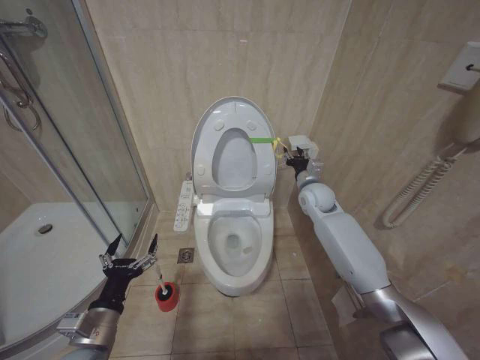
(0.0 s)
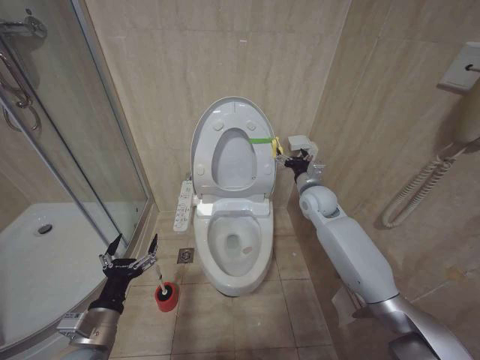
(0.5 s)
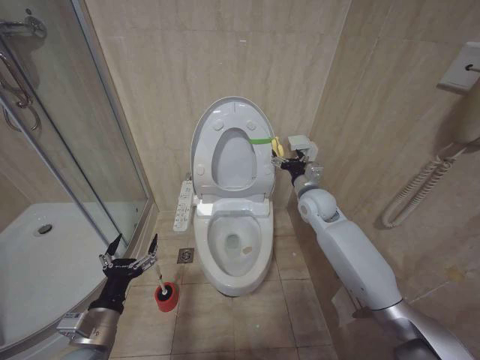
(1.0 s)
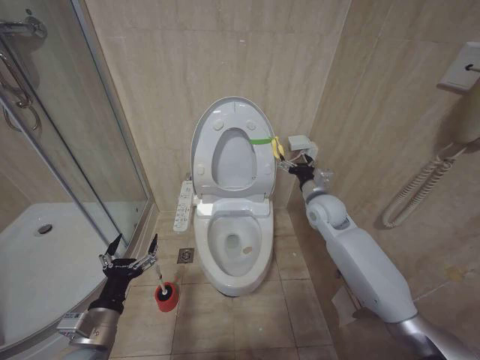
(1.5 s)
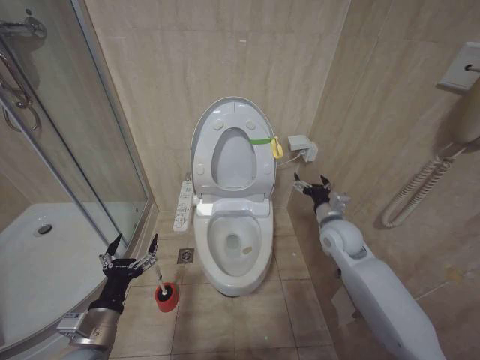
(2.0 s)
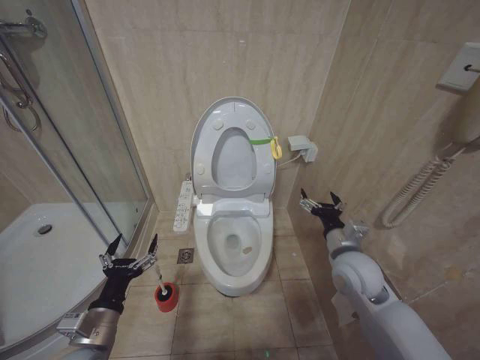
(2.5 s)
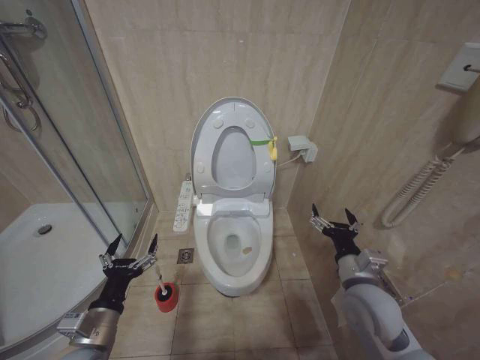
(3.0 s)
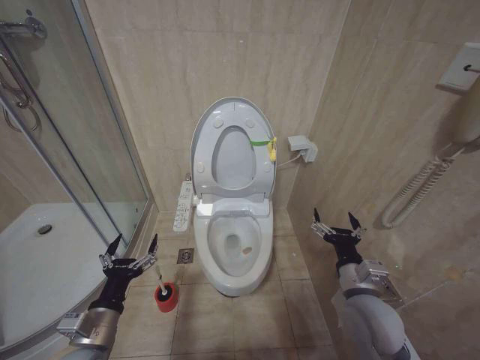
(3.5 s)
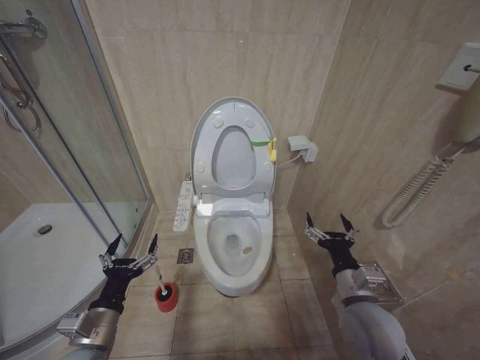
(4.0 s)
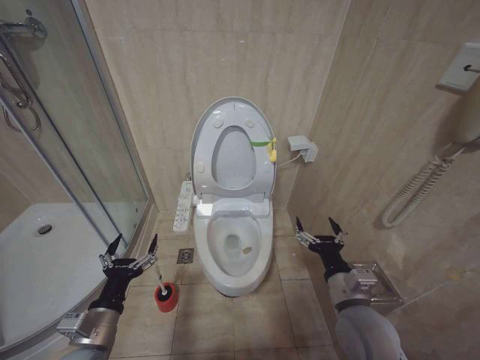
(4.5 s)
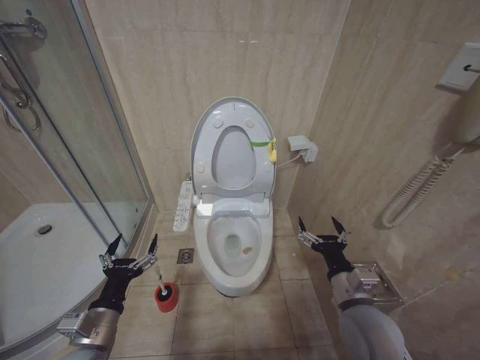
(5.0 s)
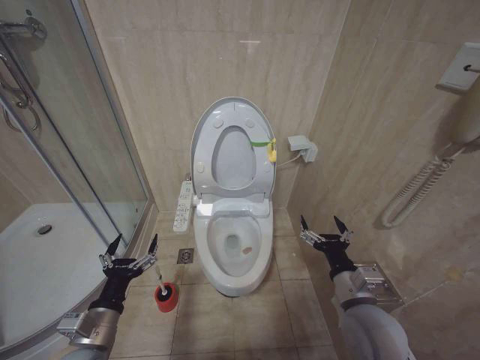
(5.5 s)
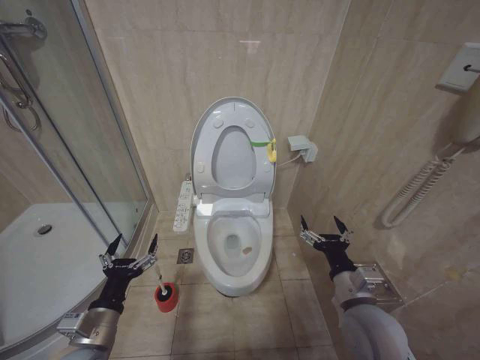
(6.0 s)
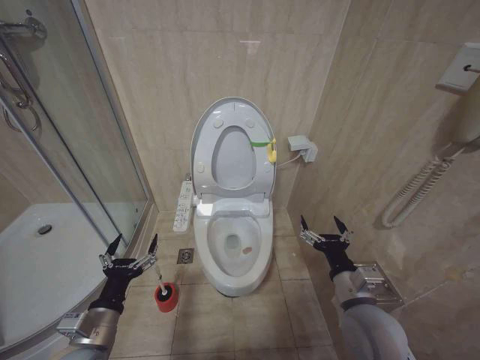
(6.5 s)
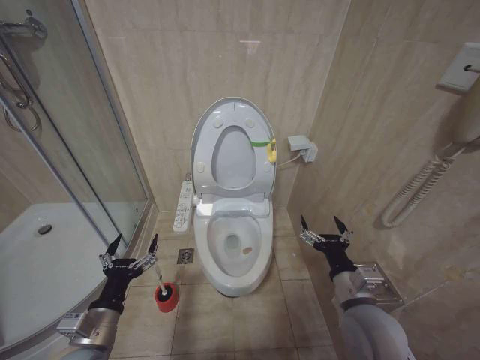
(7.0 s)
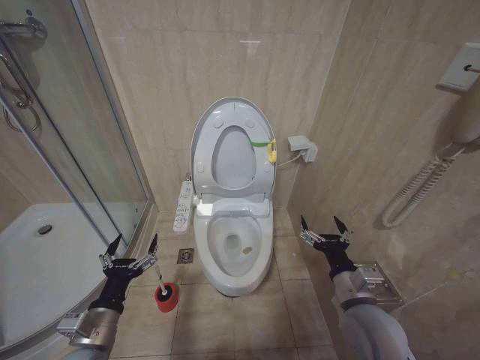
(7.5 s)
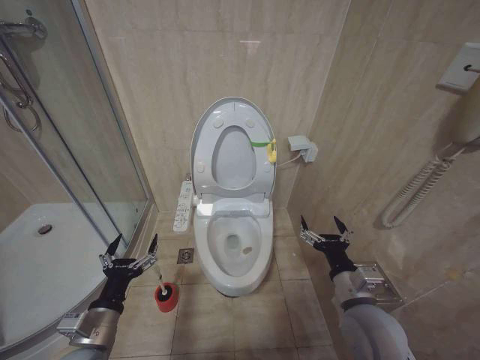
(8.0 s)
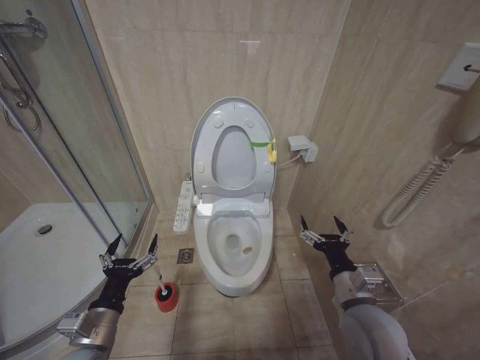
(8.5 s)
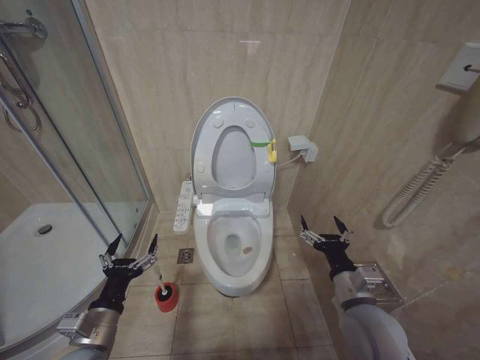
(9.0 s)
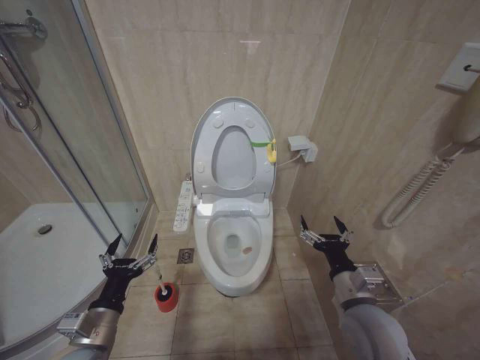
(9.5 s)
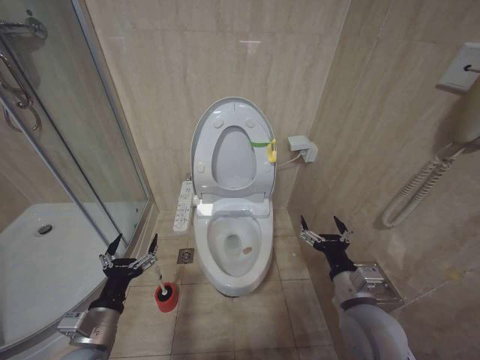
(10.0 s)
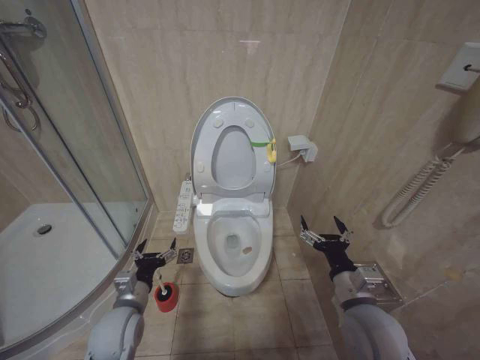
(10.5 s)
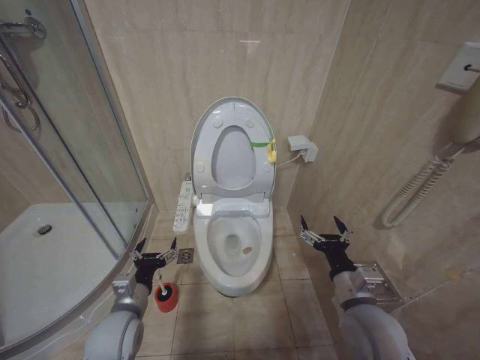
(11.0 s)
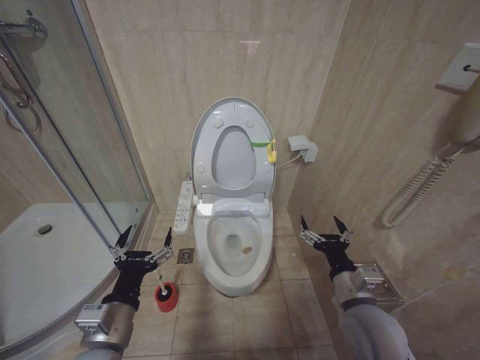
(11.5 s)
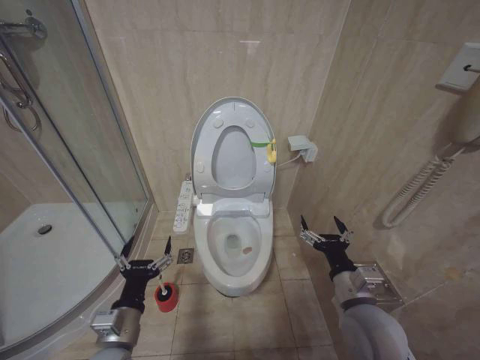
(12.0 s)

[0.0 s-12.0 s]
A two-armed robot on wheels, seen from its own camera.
Task of the whole recording: Open the toilet lid, clean the toilet bowl with a toilet brush, close the toilet lid, and flush.
0.0 to 2.0 s: The right gripper shifts approximately 10 cm backward, and opens.
2.0 to 4.0 s: The right gripper is displaced backward by about 20 cm.
6.0 to 10.0 s: Neither gripper changes place.
10.0 to 12.0 s: The left gripper heads to the right, covering approximately 5 cm, and travels forward and back again, roughly 5 cm each way.

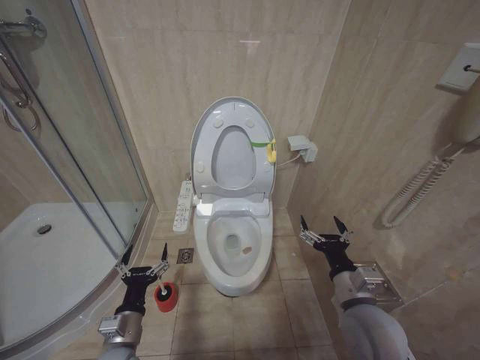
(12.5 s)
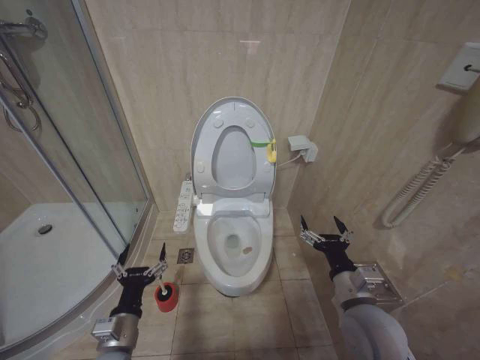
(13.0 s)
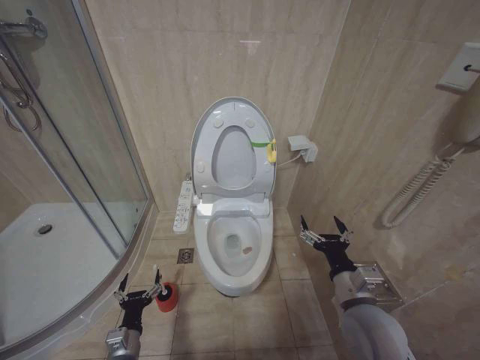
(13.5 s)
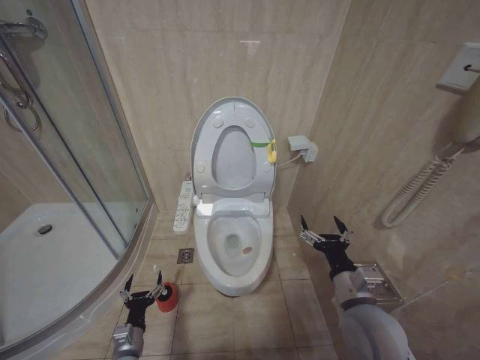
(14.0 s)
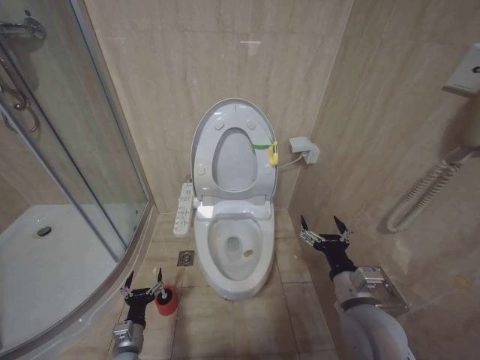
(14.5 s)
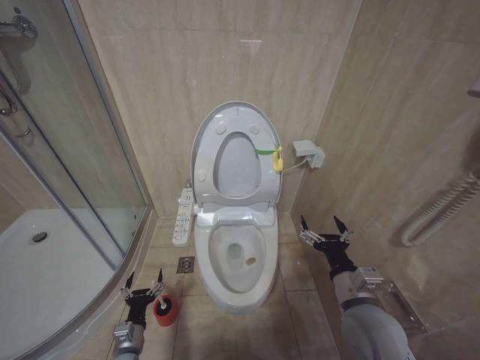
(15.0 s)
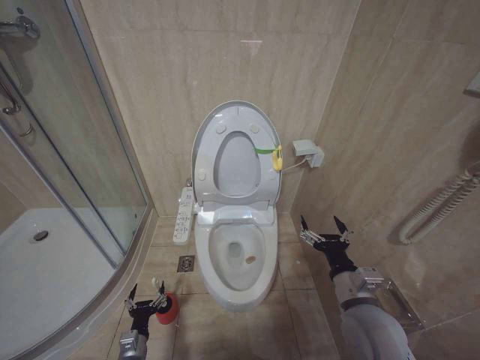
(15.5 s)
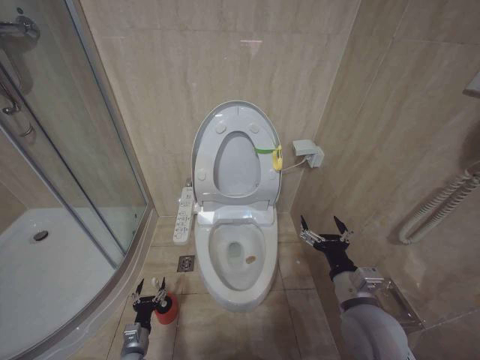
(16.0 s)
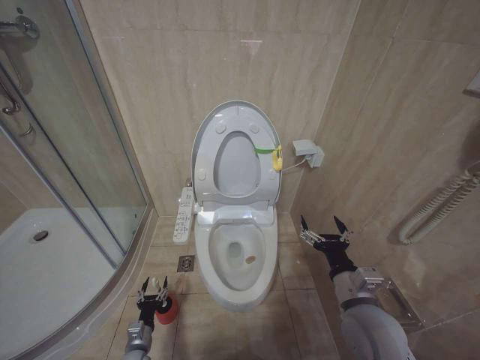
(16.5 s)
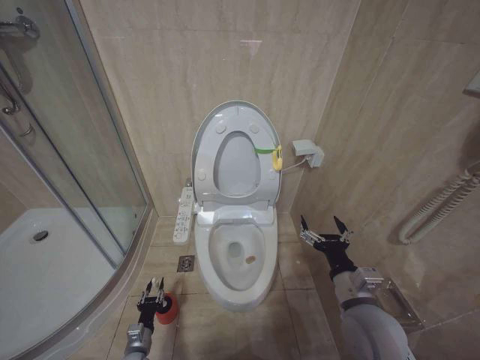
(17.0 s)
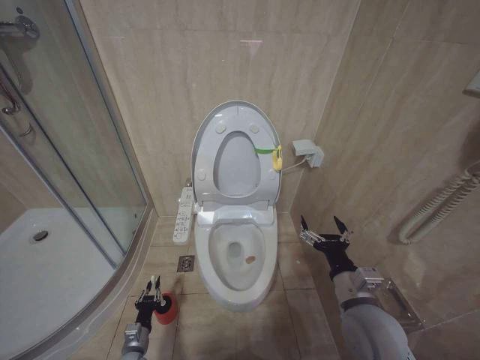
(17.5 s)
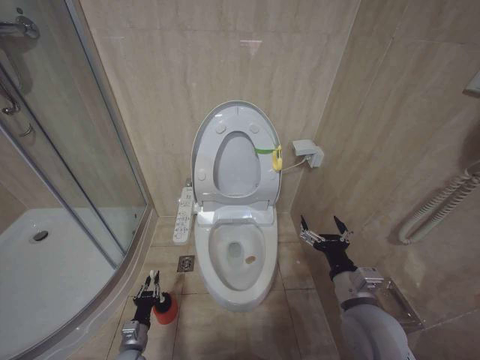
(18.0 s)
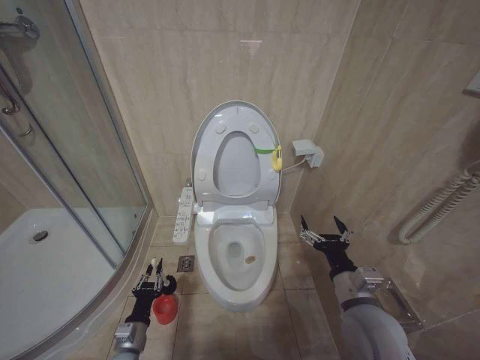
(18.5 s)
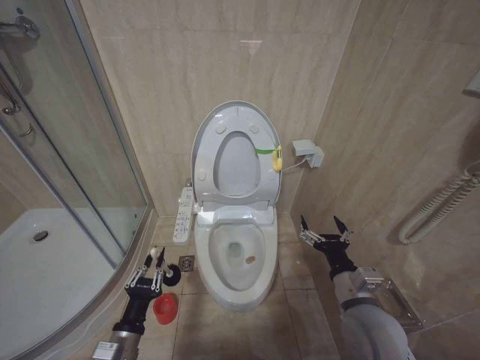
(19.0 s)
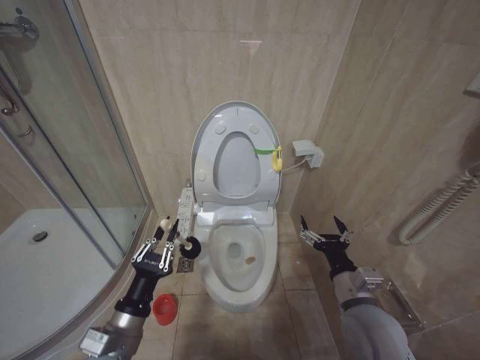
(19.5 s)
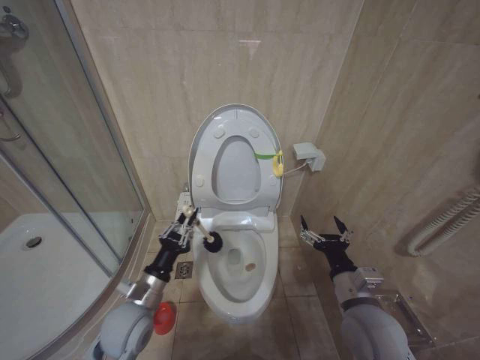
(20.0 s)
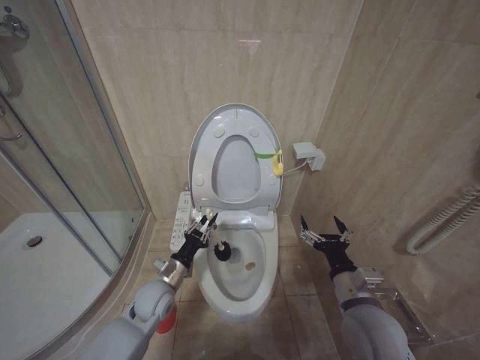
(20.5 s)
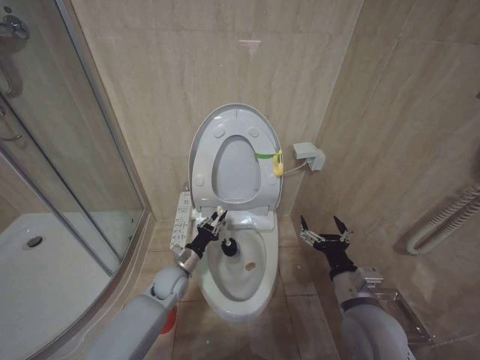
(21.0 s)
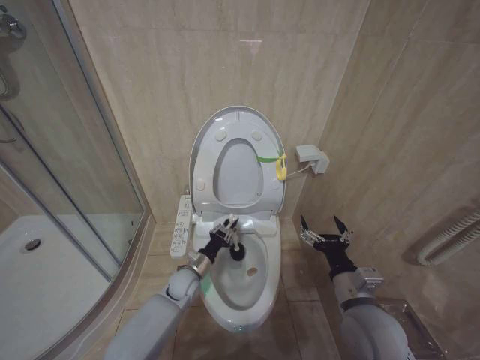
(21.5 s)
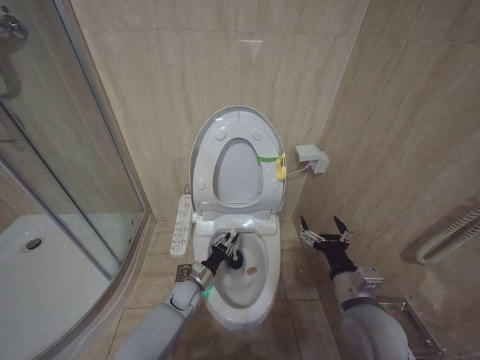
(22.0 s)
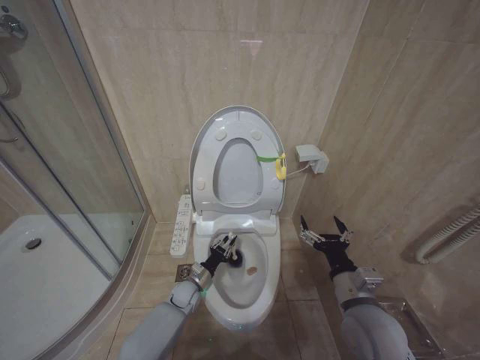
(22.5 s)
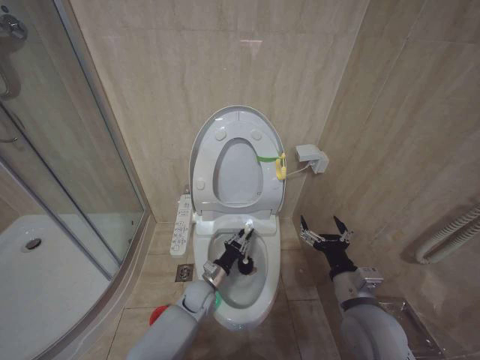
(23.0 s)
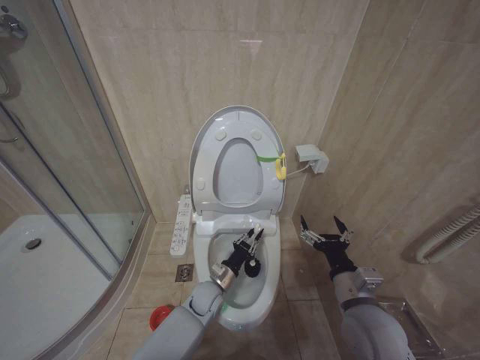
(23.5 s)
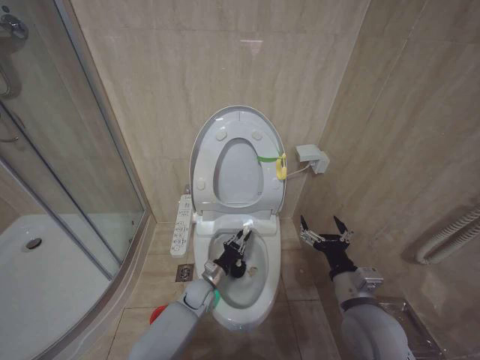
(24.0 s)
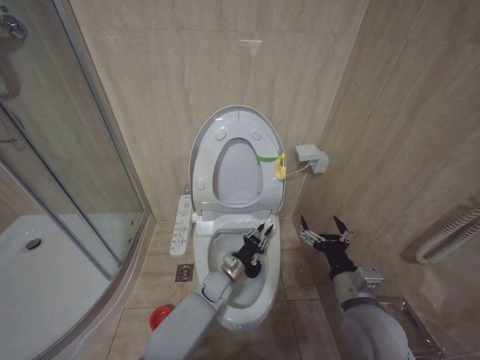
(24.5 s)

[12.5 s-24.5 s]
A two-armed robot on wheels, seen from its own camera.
Task of the whole recording: Open the toilet lid, clean the toilet bowl with a toilet brush, close the toilet lid, and flush.
12.5 to 14.5 s: The left gripper shifts roughly 15 cm downward.
14.5 to 16.5 s: The left gripper is displaced downward by approximately 10 cm.
16.5 to 18.5 s: The left gripper heads upward, covering approximately 10 cm, and closes.
18.5 to 20.5 s: The left gripper moves upward, forward and to the right, some 15 cm.
20.5 to 22.5 s: The left gripper is displaced downward and forward by roughly 15 cm.
22.5 to 24.5 s: The left gripper moves to the right and upward, approximately 15 cm.

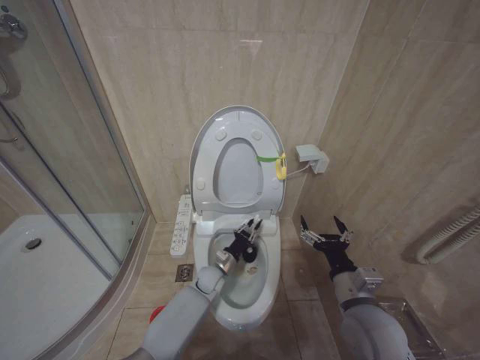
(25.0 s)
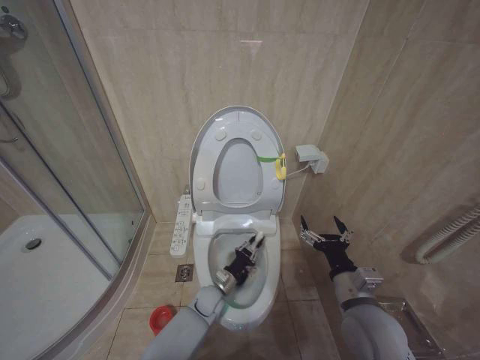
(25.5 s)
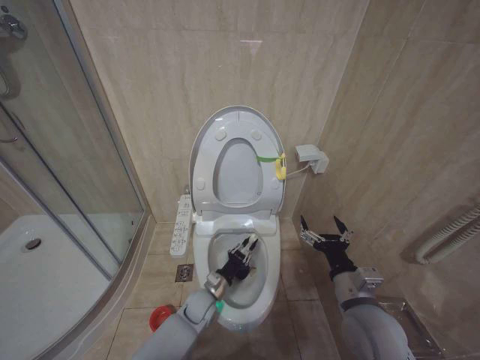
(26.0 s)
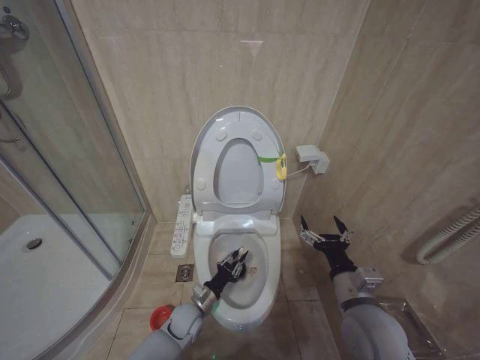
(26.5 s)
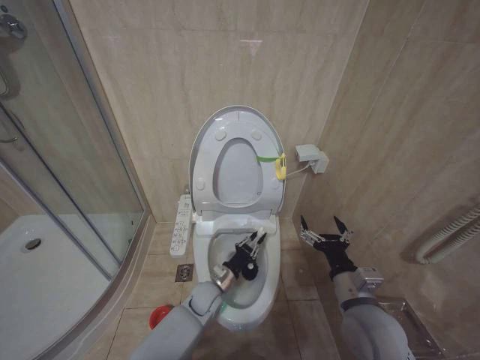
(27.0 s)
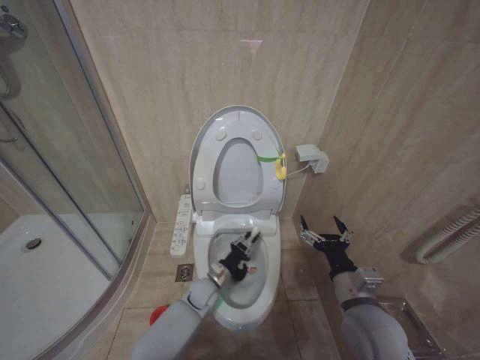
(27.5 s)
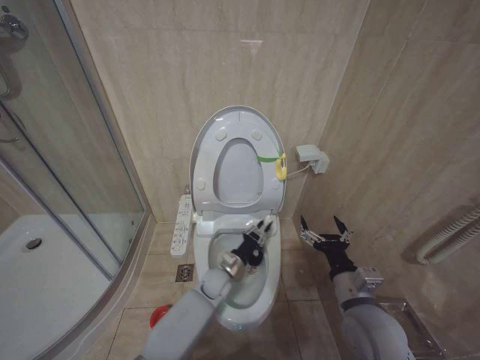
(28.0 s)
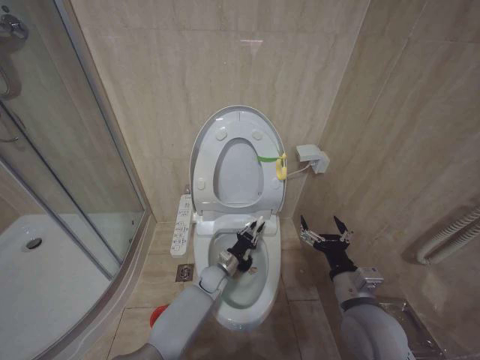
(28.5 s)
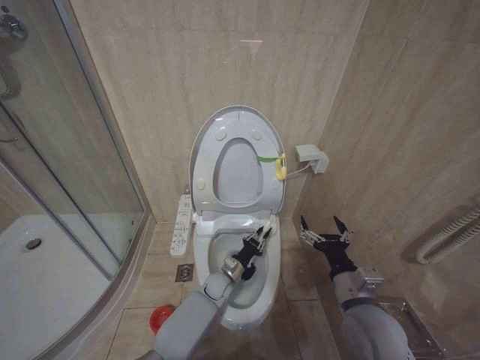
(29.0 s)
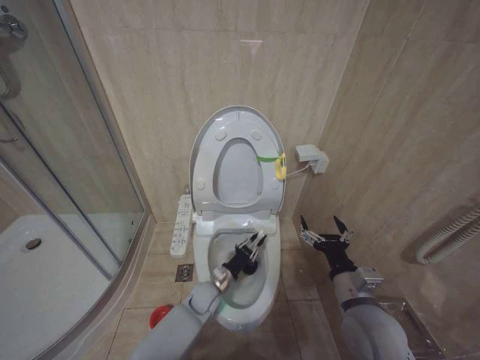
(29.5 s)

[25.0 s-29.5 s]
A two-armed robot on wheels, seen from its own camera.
Task of the whole recording: Open the toilet lid, clean the toilet bowl with a toilet brush, close the toilet lid, and flush.
25.0 to 27.0 s: The left gripper shifts roughly 5 cm backward.
